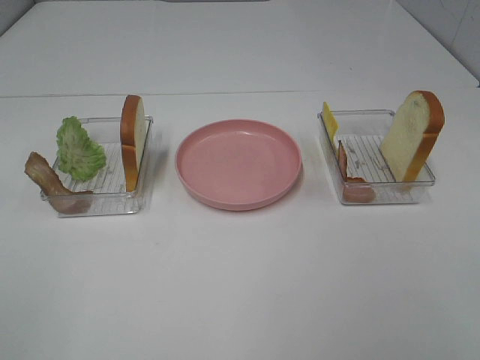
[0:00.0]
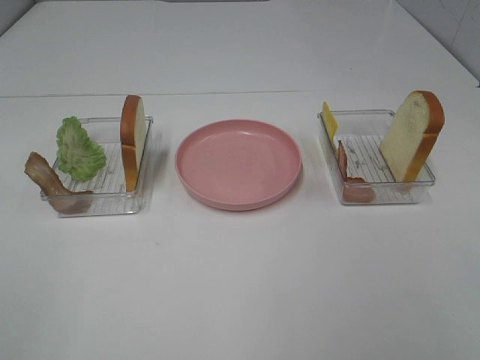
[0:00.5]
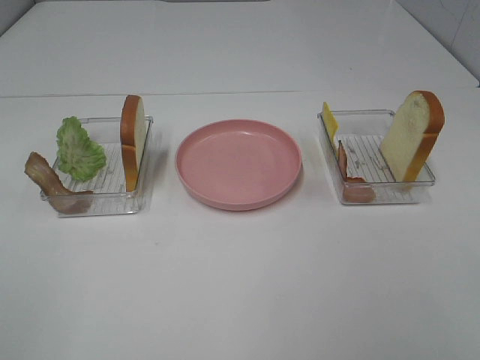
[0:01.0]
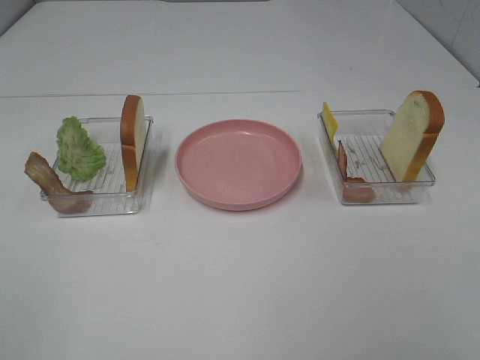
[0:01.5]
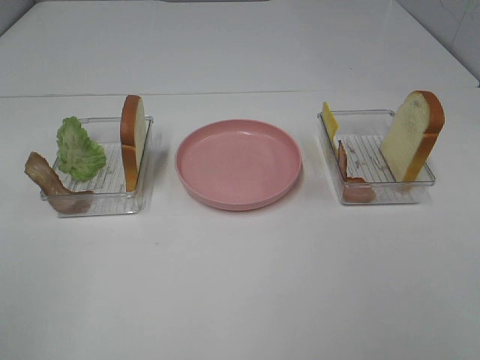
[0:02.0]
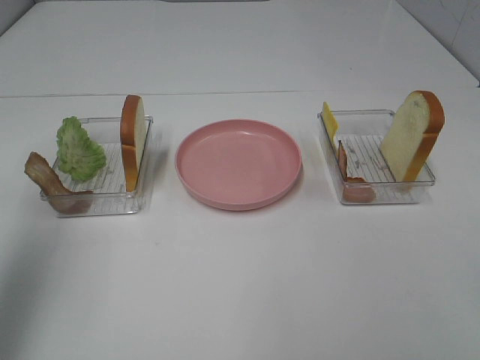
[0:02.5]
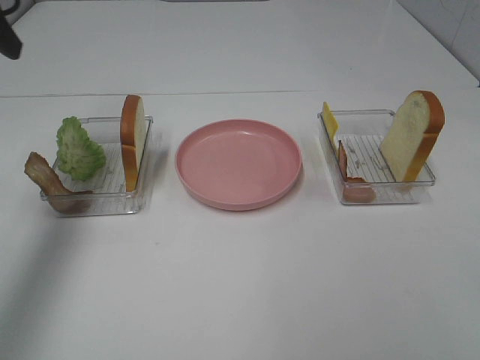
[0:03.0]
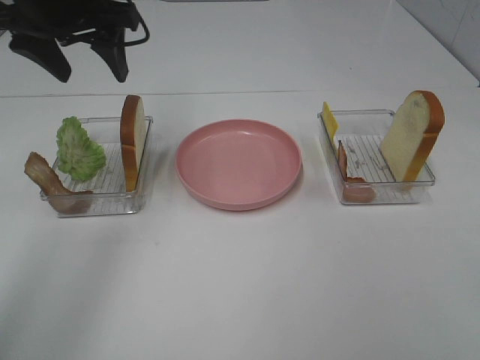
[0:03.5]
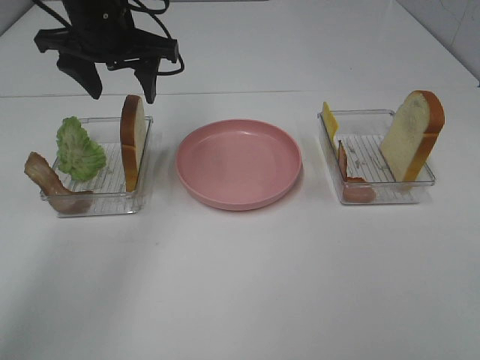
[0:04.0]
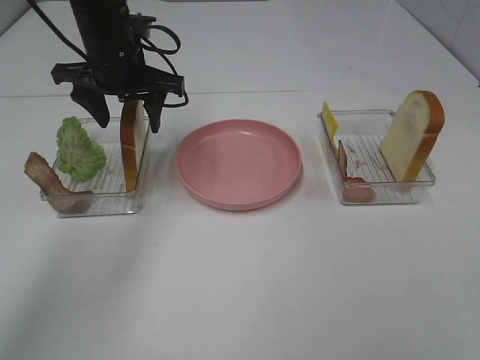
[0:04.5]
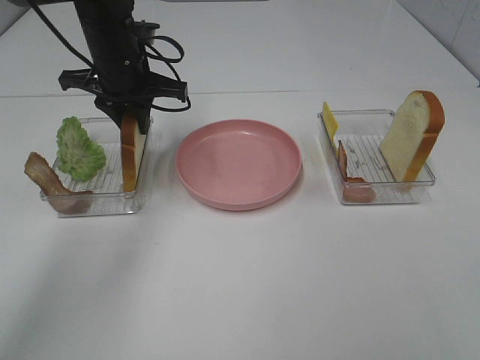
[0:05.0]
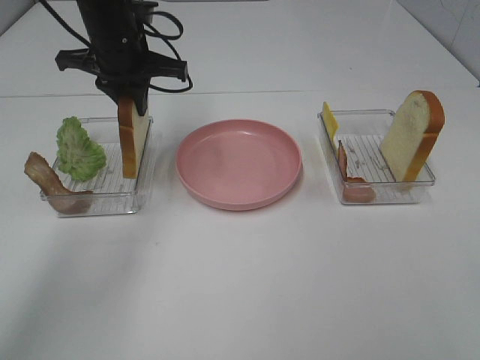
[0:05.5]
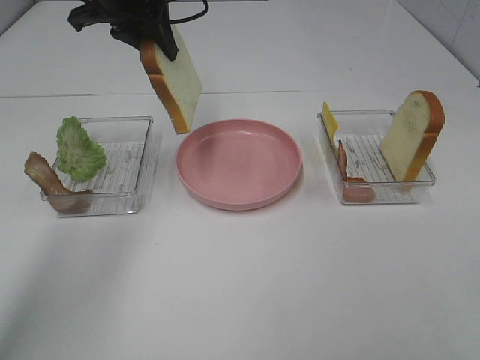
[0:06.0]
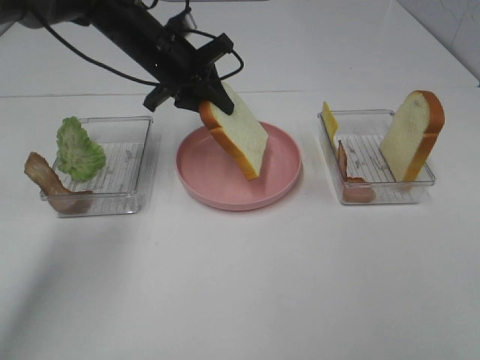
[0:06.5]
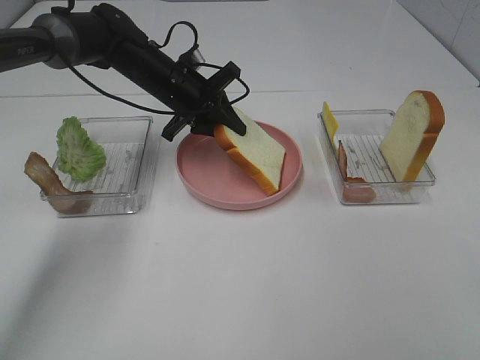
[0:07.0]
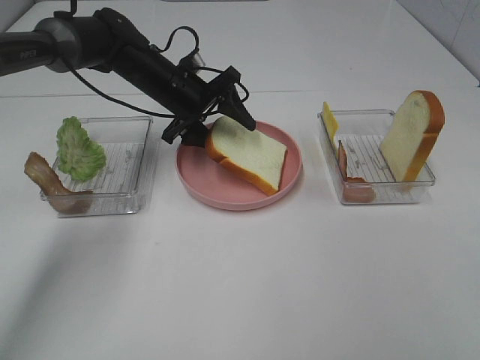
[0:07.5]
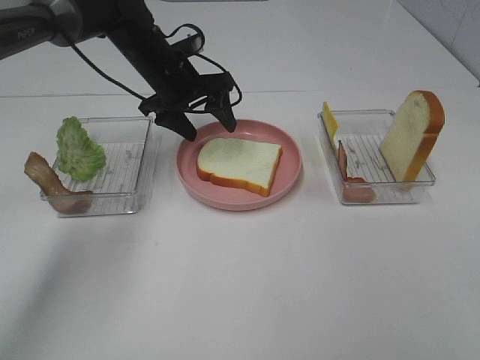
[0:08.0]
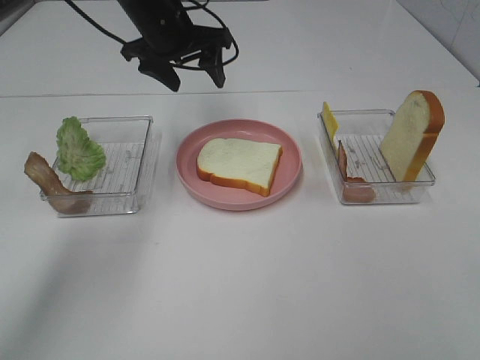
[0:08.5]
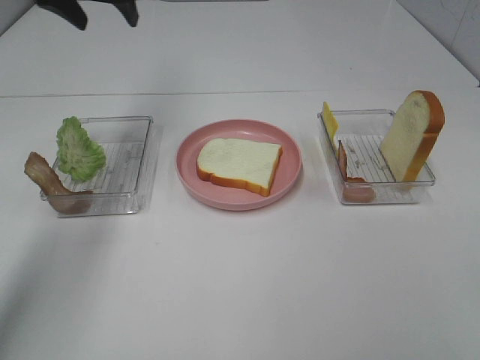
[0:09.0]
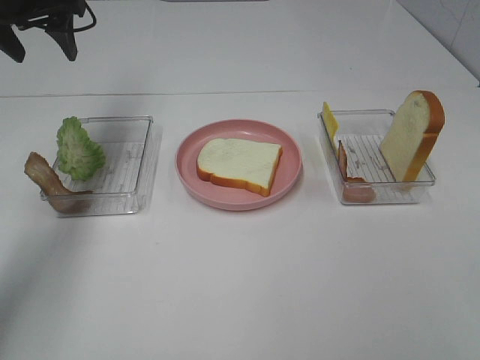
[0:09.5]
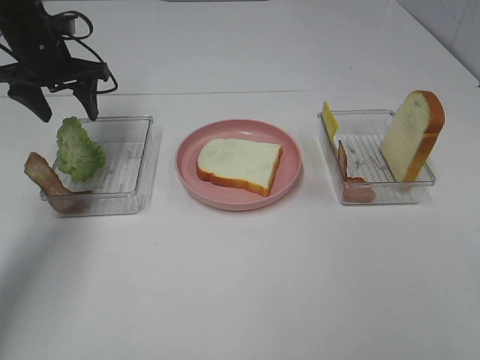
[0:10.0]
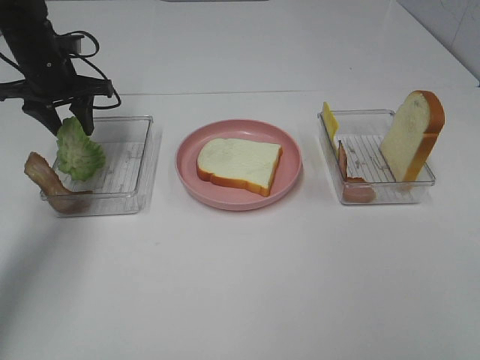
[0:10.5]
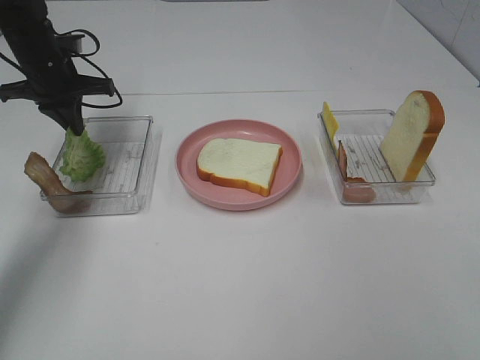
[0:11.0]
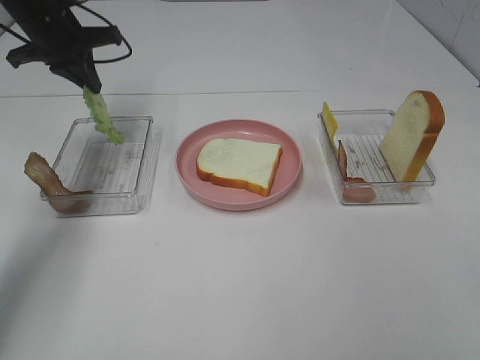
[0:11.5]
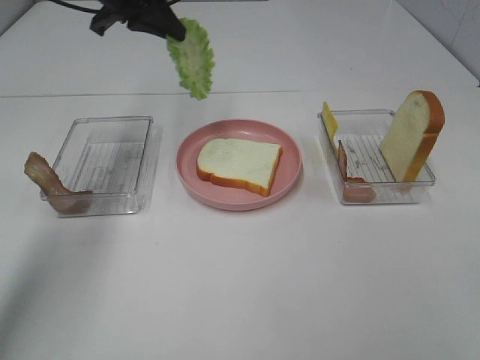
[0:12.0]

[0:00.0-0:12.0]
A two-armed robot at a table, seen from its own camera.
Task of the whole recording: Make sandwiches.
Step, 0:00.0 to 0:05.0: Left hand:grab the bread slice.
Step, 0:05.5 to 0:08.0: Left hand:place the bread slice on the plate.
Step, 0:08.5 to 0:10.5: Left hand:grab the lettuce slice.
0:02.0 to 0:04.0: The left gripper moves forward and to the right, roughly 40 cm.
0:04.0 to 0:06.0: The left gripper closes its fingers.
0:06.0 to 0:08.0: The left gripper goes some 15 cm downward, and opens its fingers.
0:08.0 to 0:10.0: The left gripper moves to the left, roughly 15 cm.
0:10.0 to 0:12.0: The left gripper goes roughly 15 cm to the right and upward, and closes its fingers.

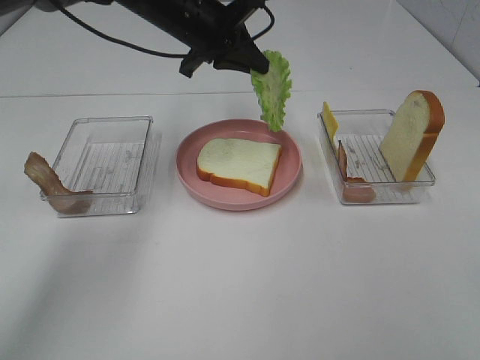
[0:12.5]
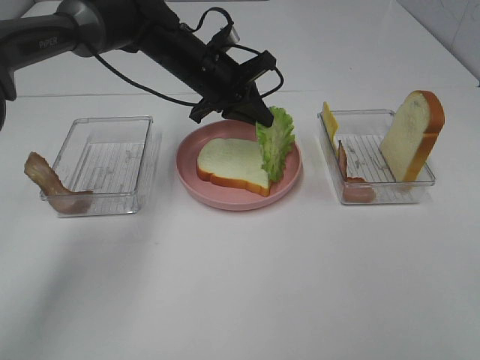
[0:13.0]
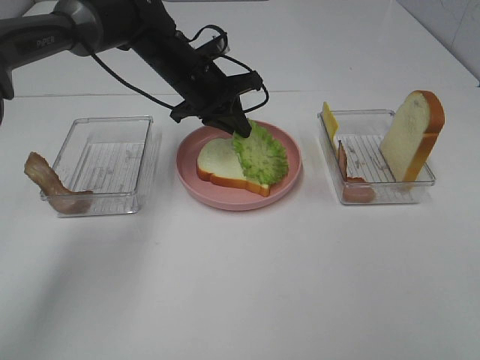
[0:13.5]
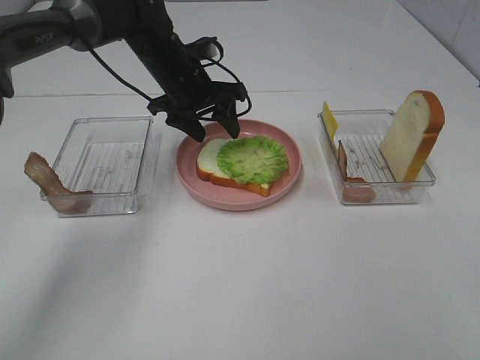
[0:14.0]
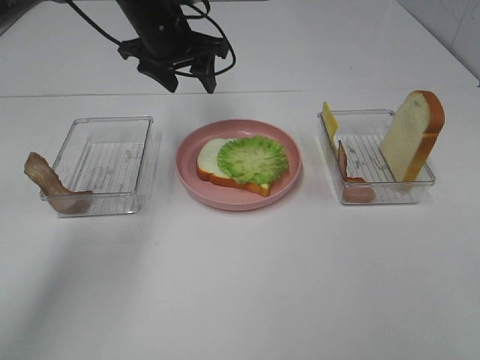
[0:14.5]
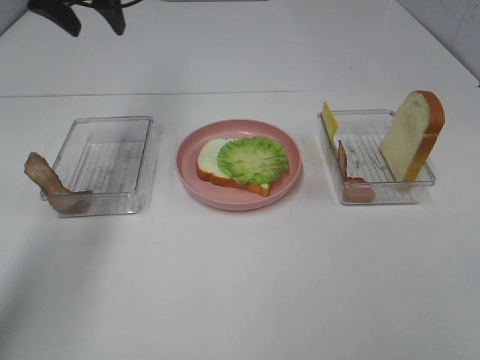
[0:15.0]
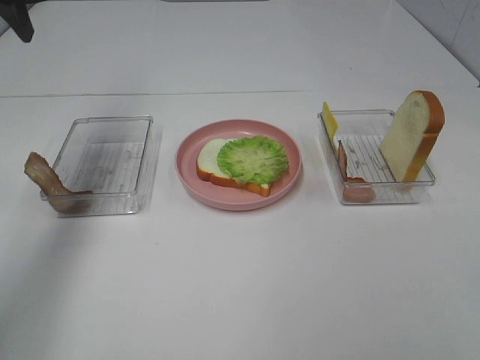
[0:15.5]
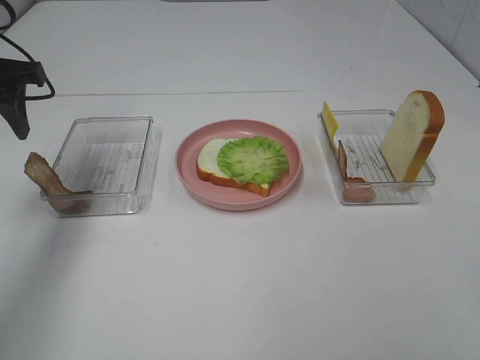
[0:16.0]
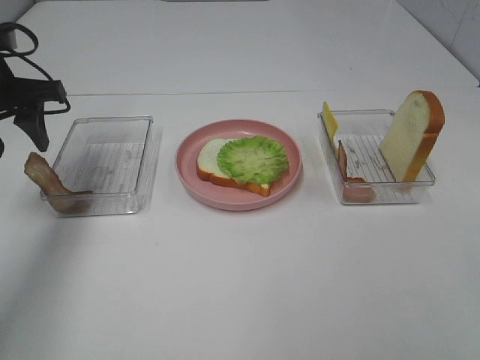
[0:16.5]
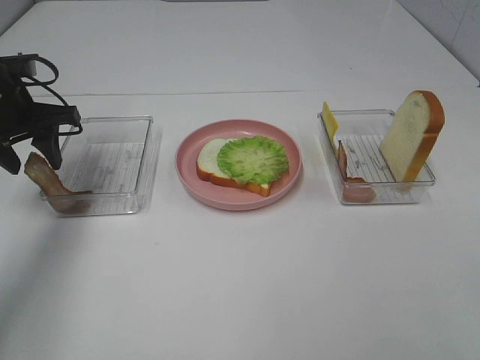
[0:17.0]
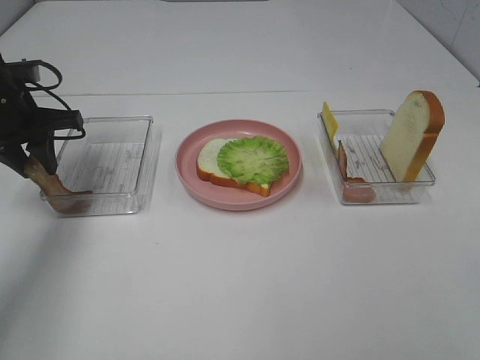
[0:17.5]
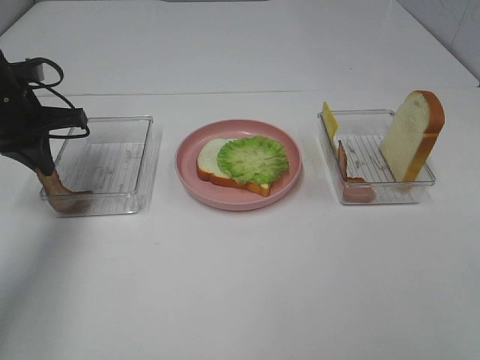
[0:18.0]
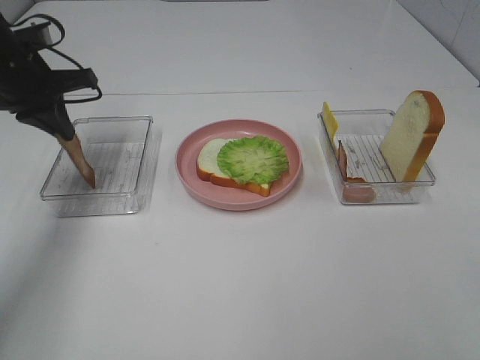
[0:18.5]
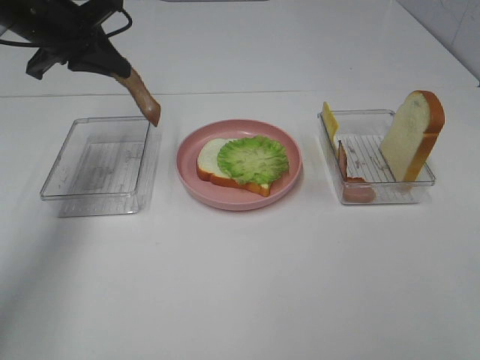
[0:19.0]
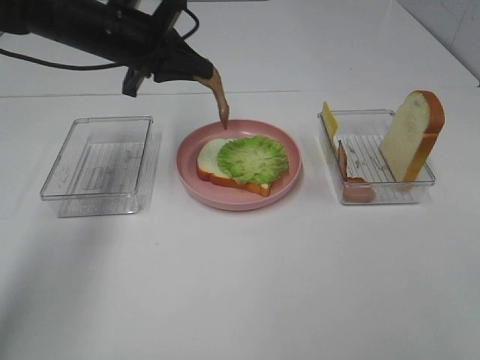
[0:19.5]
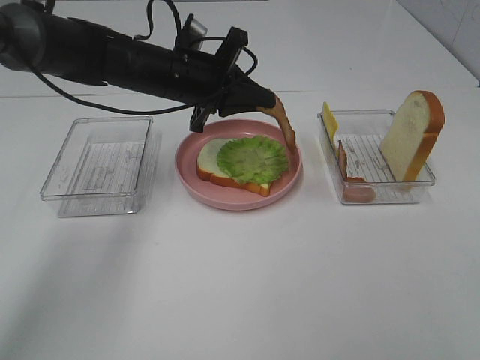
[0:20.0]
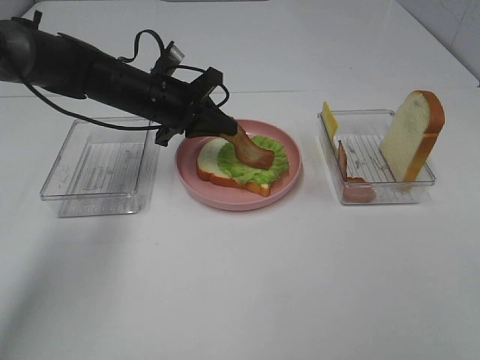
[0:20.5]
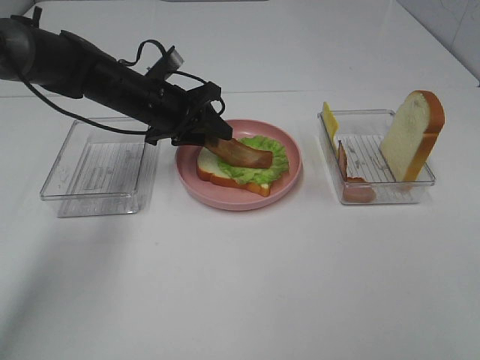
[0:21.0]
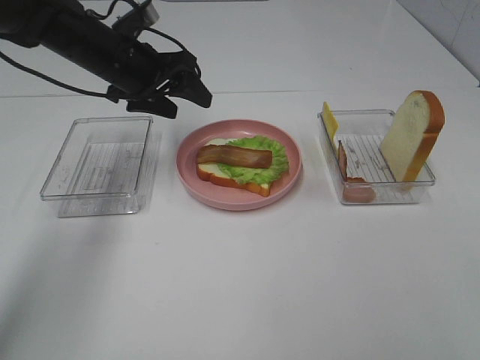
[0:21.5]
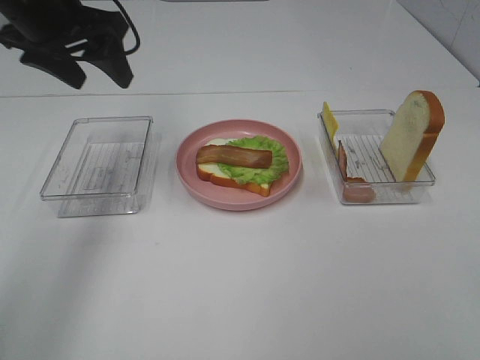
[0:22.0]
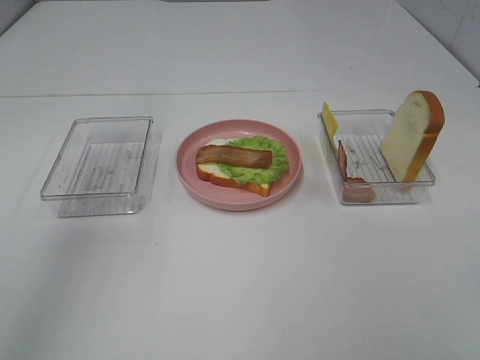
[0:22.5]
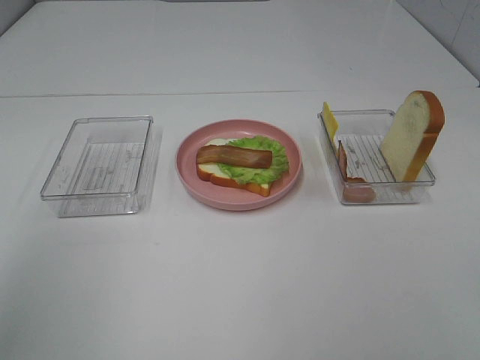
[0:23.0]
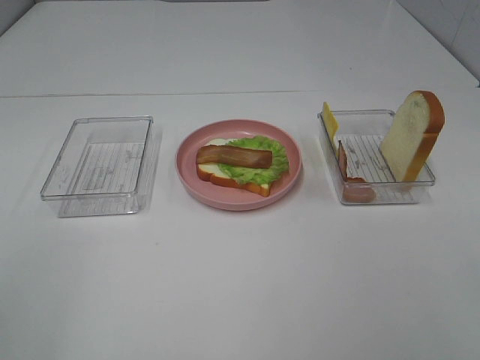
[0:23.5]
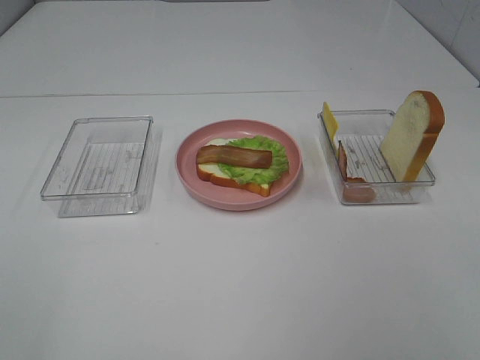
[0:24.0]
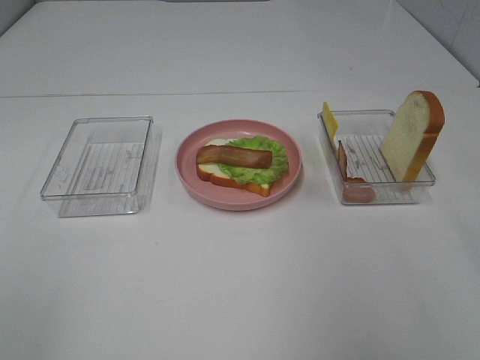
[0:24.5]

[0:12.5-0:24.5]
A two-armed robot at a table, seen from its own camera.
Task of the whole recording: Make sandwiches.
Step, 0:14.5 to 0:18.0: Left hand:grab the bacon.
Step, 0:18.5 to 0:21.5: Left hand:place bacon on lettuce slice.
0:12.5 to 0:14.5: The left gripper opens up.
0:14.5 to 0:16.5: The left gripper is displaced to the left and backward by about 20 cm.
0:16.5 to 0:18.5: The left gripper closes.
0:18.5 to 0:20.5: The left gripper travels to the right and downward by approximately 15 cm.
0:20.5 to 0:22.5: The left gripper goes approximately 35 cm upward, backward and to the left, and opens its fingers.

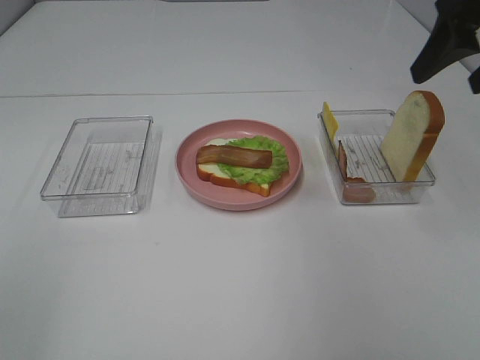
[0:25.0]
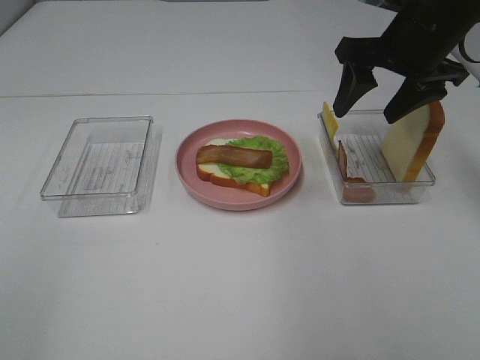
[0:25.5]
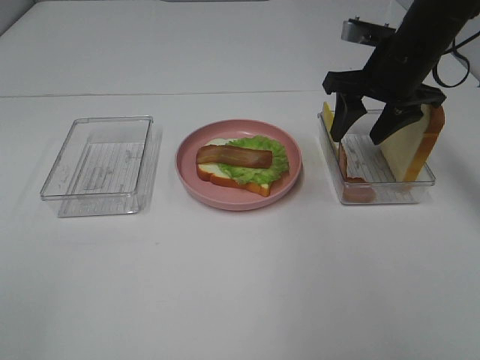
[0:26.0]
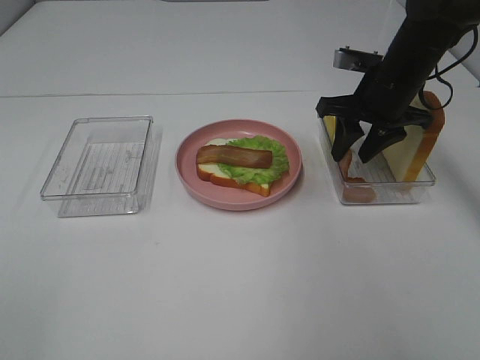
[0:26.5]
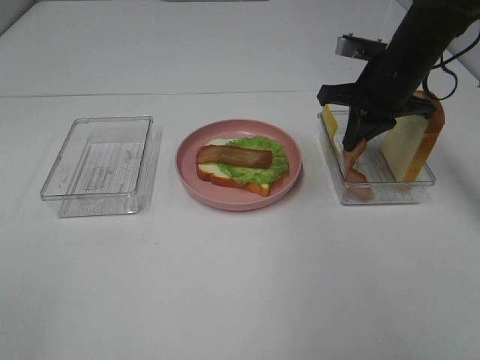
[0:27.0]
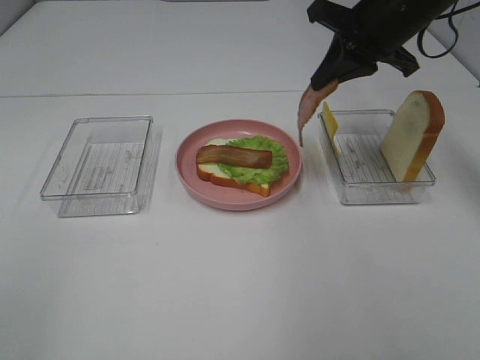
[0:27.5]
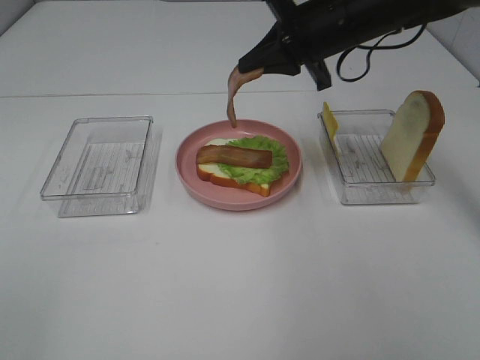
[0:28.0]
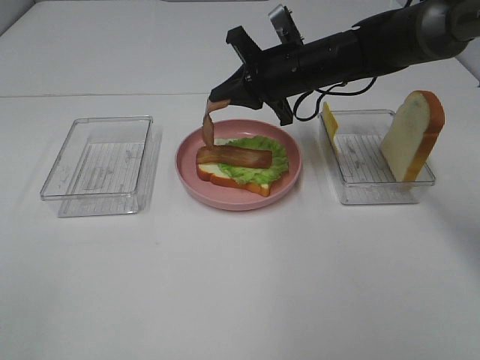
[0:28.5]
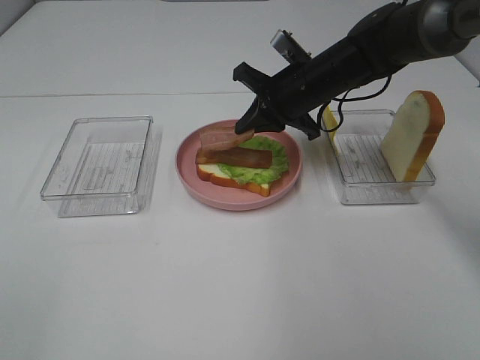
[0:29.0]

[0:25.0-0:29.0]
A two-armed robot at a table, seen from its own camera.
Task of the whole recording: Make sandwiches.
0:25.0 to 0:27.0: The right gripper moves downward, forward and to the left, about 15 cm, and closes up.
0:27.0 to 0:29.0: The right gripper travels to the left by roughly 10 cm.
